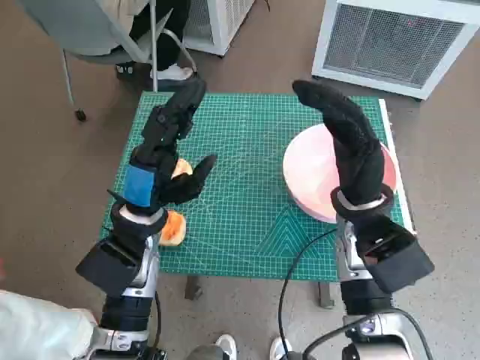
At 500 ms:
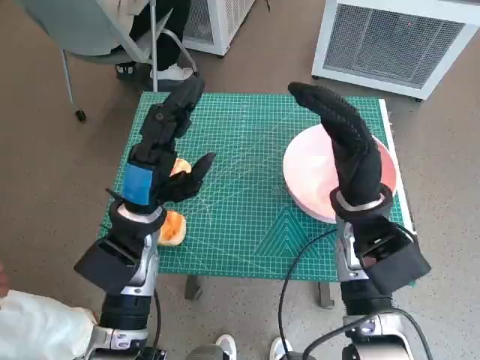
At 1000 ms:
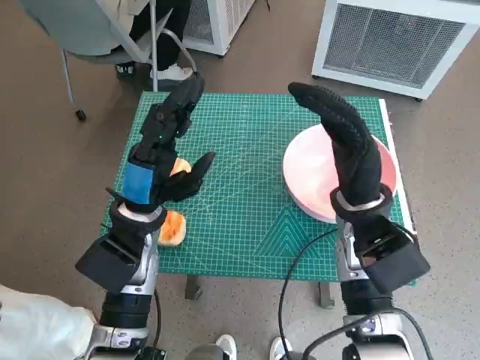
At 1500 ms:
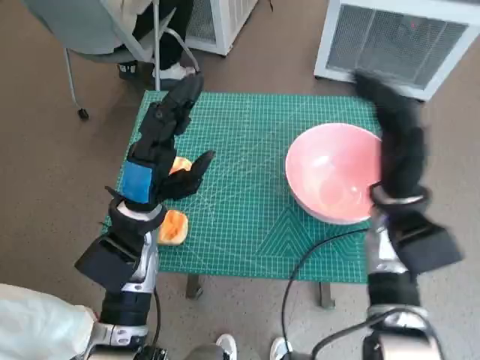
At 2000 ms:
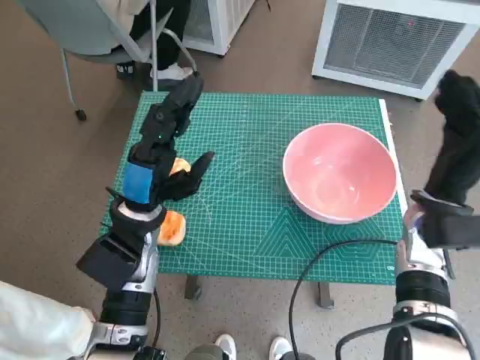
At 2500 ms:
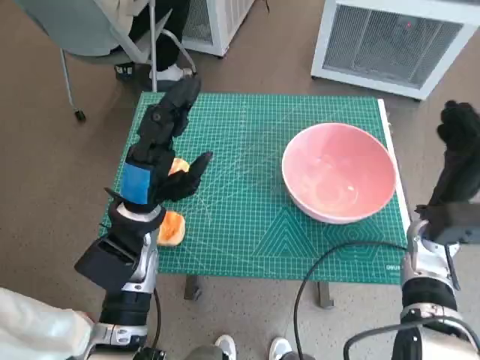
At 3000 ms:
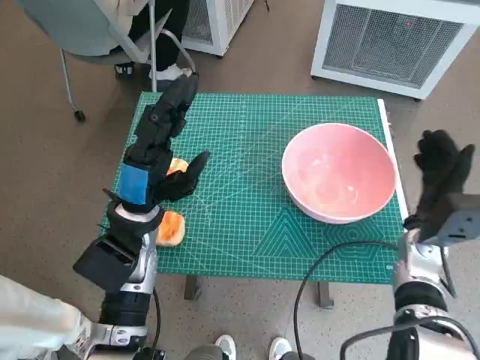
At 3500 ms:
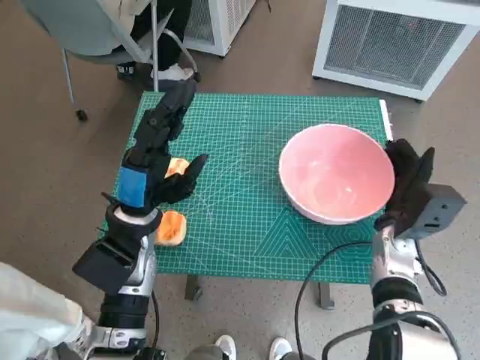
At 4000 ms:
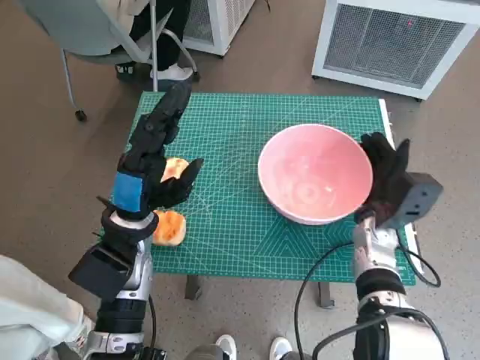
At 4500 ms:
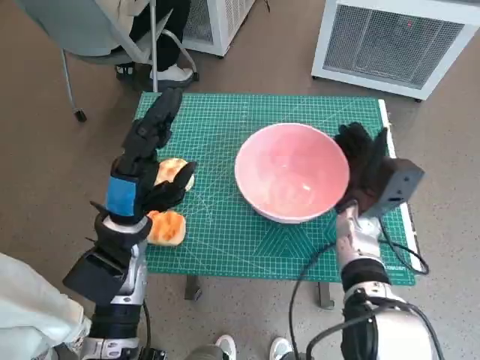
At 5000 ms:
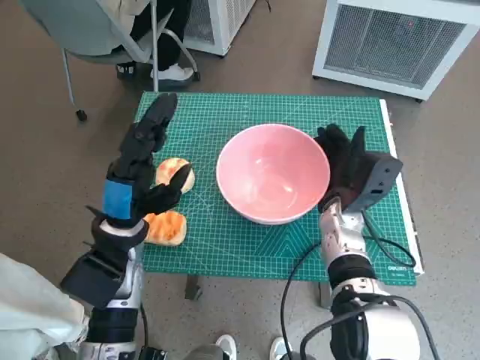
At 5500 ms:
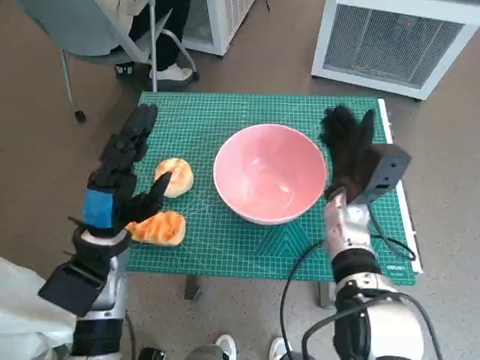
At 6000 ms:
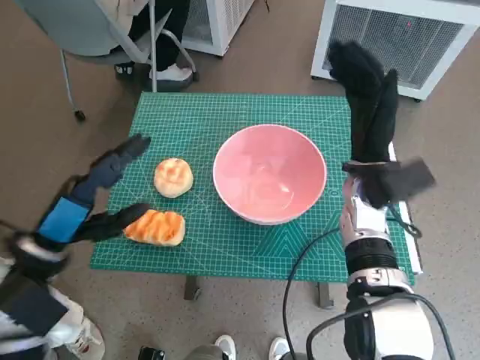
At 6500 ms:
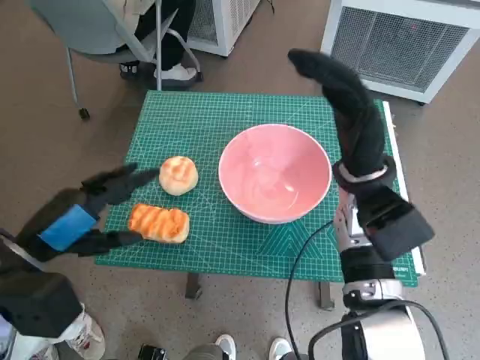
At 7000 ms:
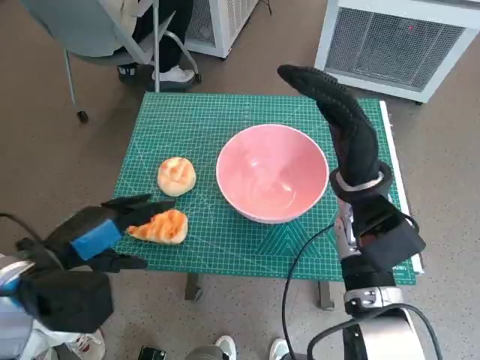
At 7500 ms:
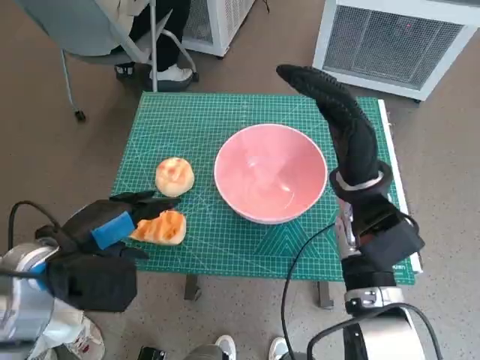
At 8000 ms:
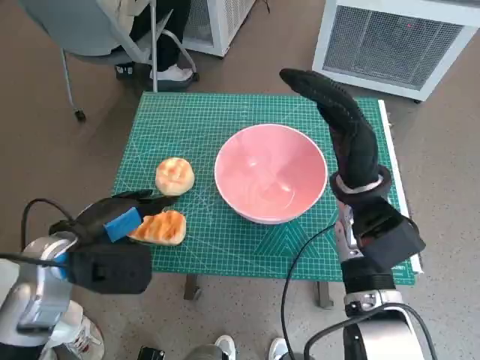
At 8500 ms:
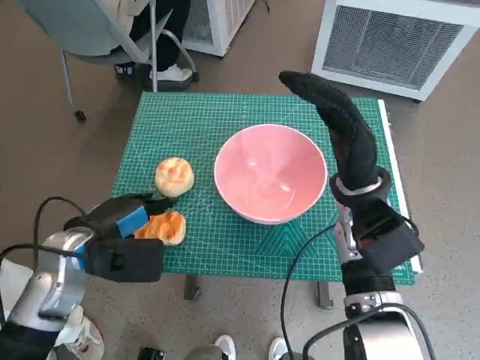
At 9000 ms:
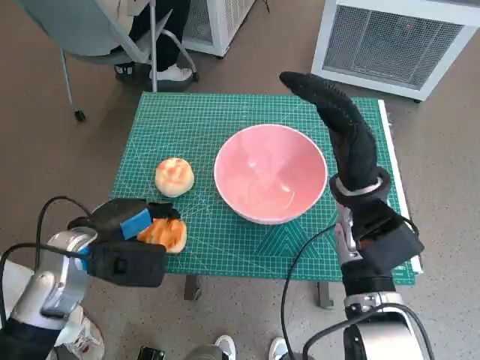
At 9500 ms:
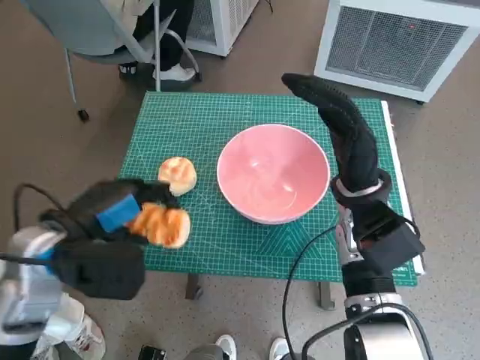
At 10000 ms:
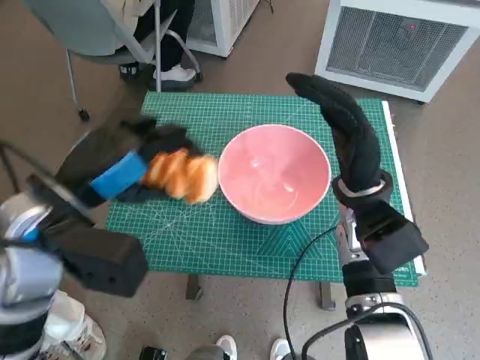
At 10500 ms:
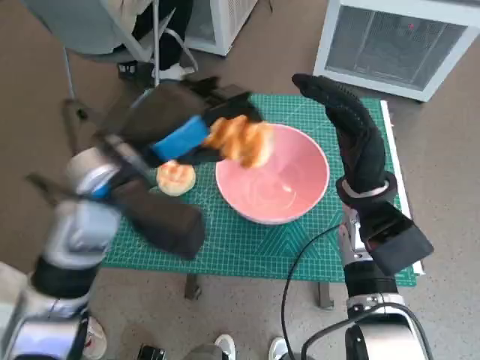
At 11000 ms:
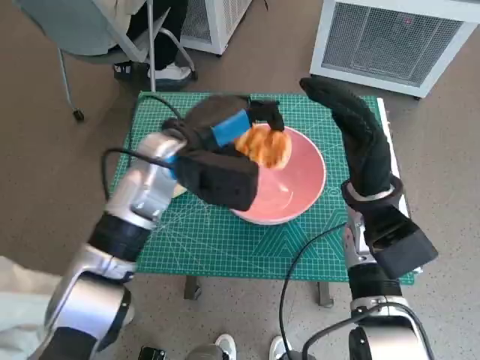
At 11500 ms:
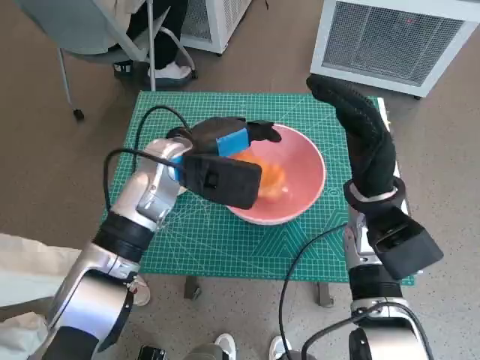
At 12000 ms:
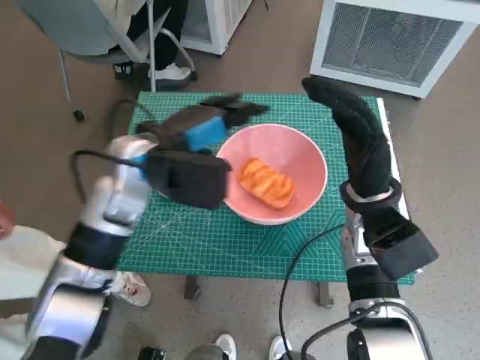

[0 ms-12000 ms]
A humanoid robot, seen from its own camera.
Task of the whole recording: Push the bowl to the center of the table and put the bread into the bowl.
Step, 0 ms to 5500 ms: Move the pink bowl to the center of table with right hand.
Step, 6000 ms to 9000 ms: Grasp the long bread with left hand.
Step, 9500 ms to 11500 ms: Place the long bread in pink bowl with left hand.
2000 ms to 4000 ms: The right hand travels downward by some 5 cm.
4000 ms to 6000 ms: The left hand travels to the left and backward by some 10 cm. The right hand is displaced upward by about 10 cm.
8000 ms to 10000 ms: The left hand heads upward, covering approximately 10 cm.
10000 ms to 12000 ms: The left hand goes approximately 10 cm forward and to the right.

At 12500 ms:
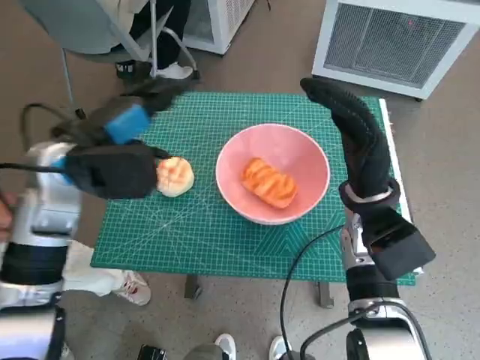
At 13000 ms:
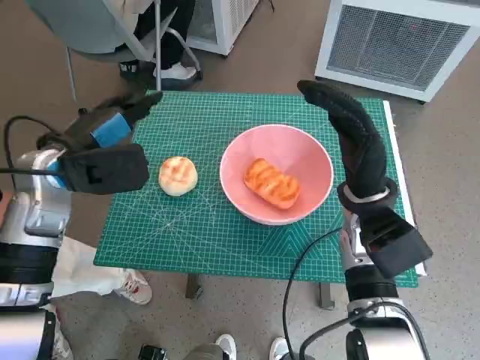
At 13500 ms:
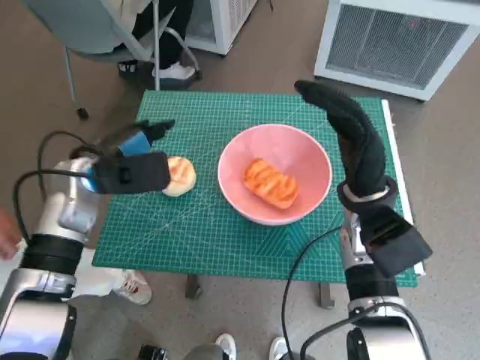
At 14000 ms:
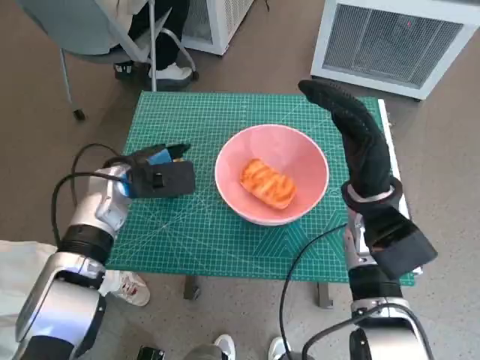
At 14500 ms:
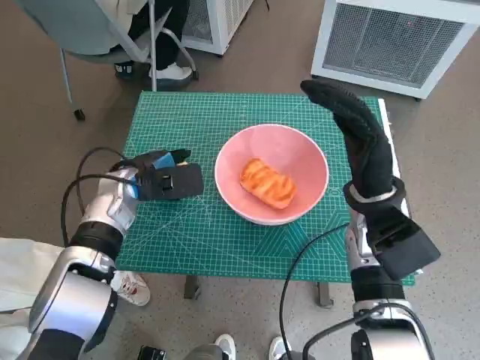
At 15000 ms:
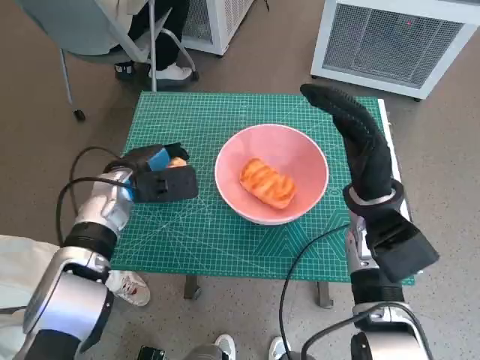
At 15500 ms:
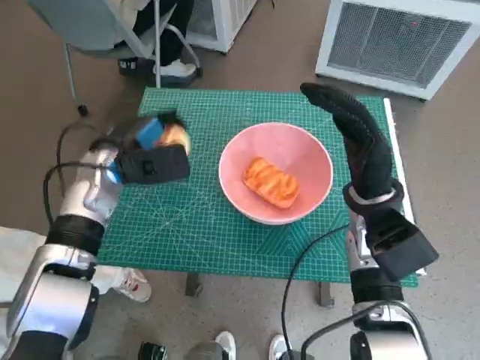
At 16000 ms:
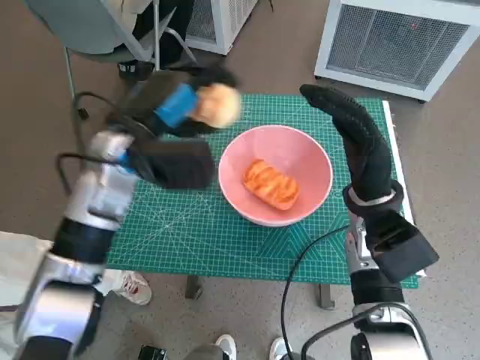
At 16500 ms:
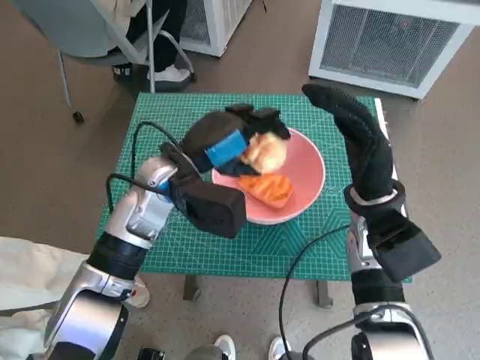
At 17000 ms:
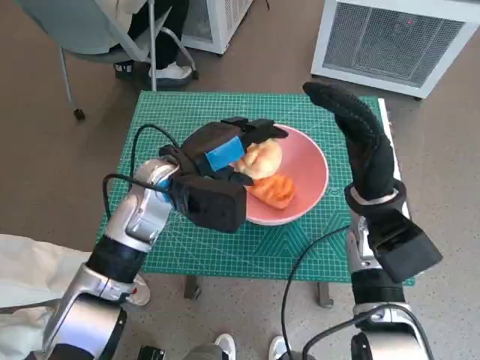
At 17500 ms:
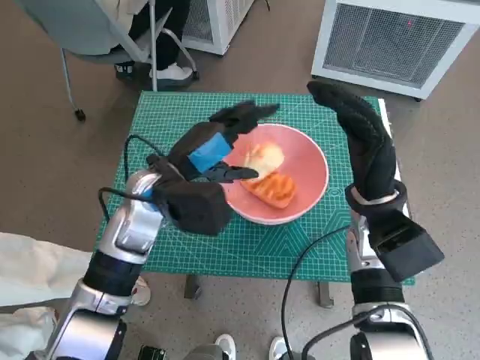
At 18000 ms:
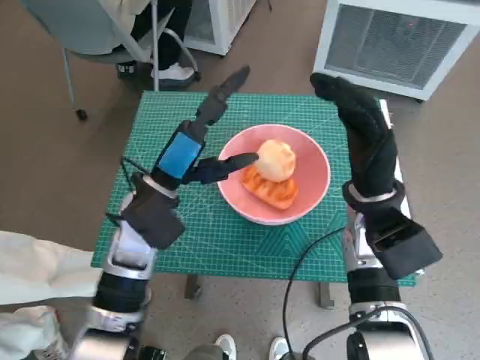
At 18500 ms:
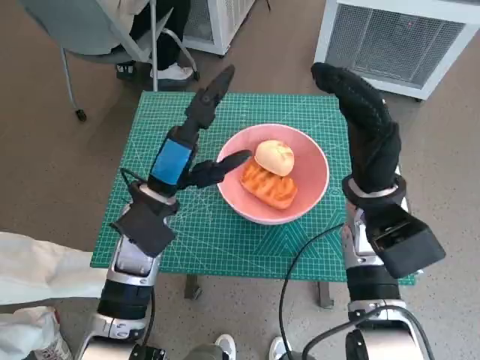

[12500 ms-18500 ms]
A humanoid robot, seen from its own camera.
Task of the whole recording: Push the bowl to the center of the table and put the bread into the bowl.
Step, 12500 ms to 14500 ms: Grasp the round bread with left hand.
Step, 15000 ms to 17500 ms: Place the round bread in pink bowl with left hand.
12500 ms to 14500 ms: The left hand goes roughly 10 cm downward.
14500 ms to 16500 ms: The left hand travels to the right and upward by about 10 cm.
16500 ms to 18500 ms: The left hand ends up roughly 5 cm from where it was.

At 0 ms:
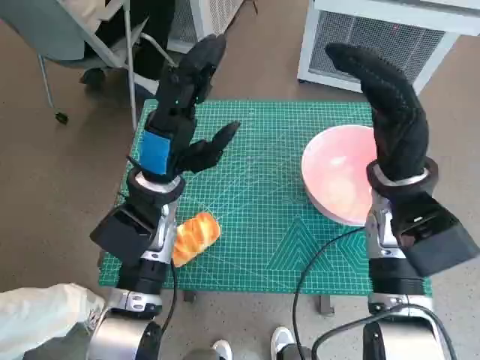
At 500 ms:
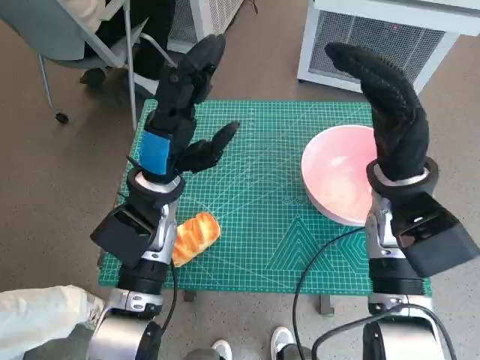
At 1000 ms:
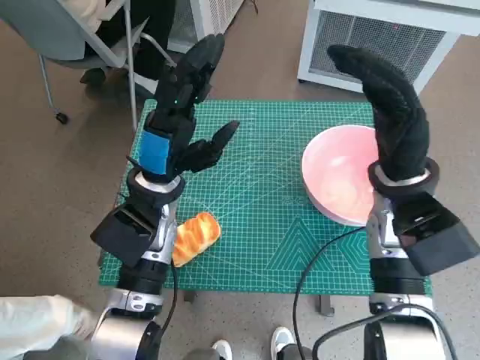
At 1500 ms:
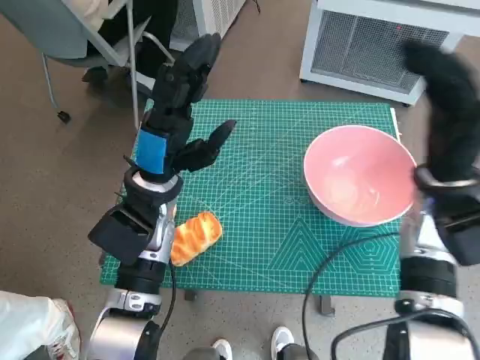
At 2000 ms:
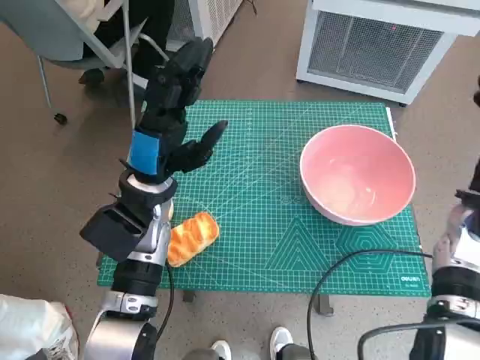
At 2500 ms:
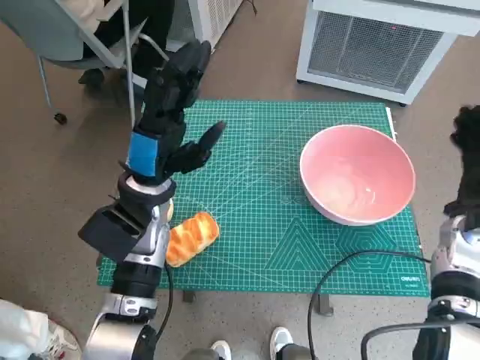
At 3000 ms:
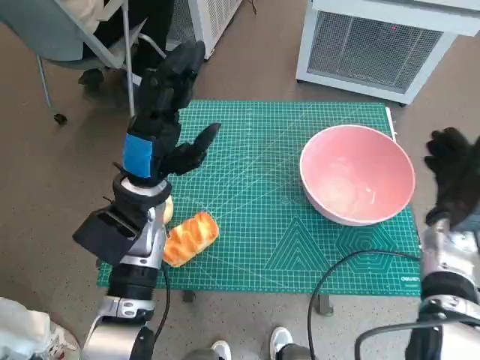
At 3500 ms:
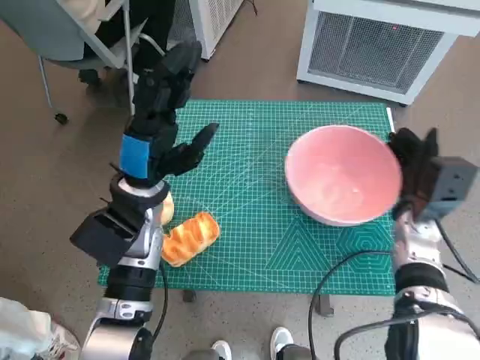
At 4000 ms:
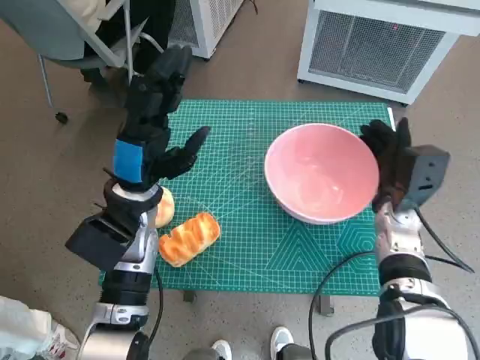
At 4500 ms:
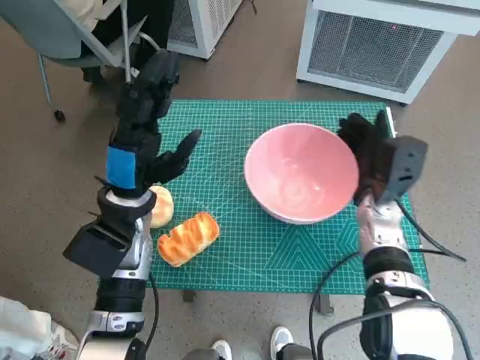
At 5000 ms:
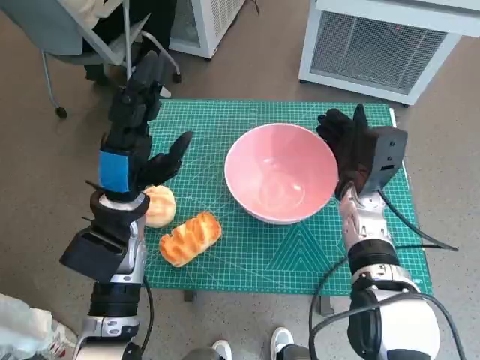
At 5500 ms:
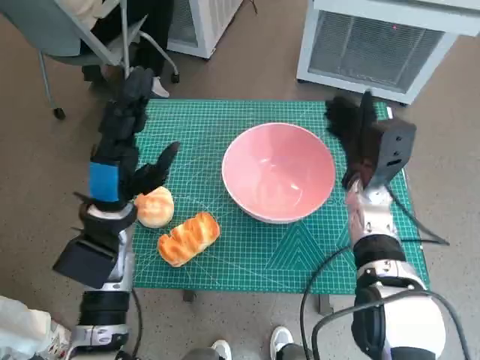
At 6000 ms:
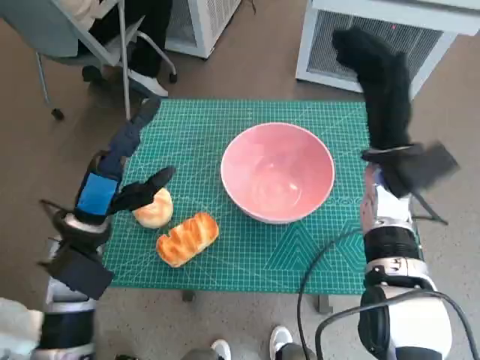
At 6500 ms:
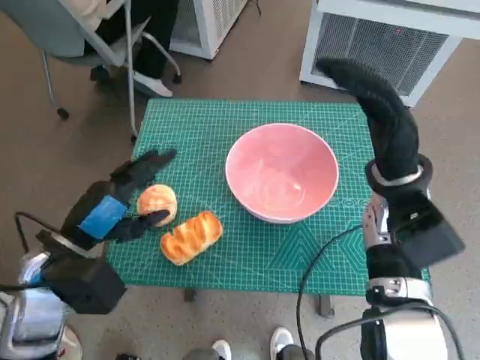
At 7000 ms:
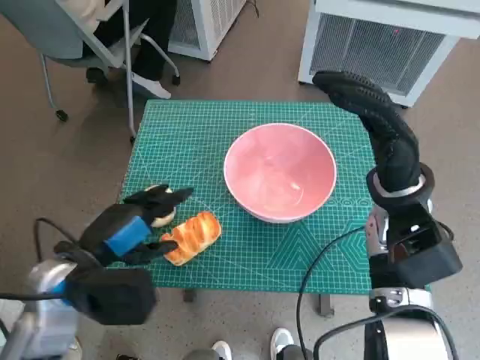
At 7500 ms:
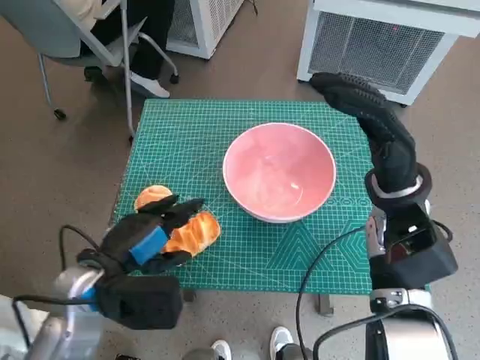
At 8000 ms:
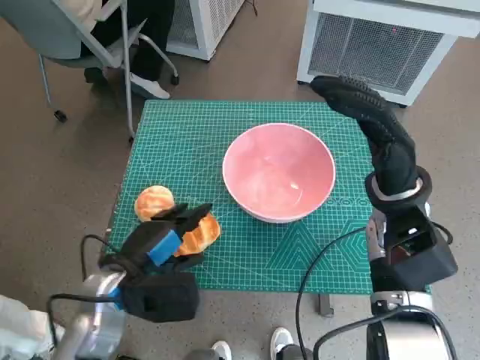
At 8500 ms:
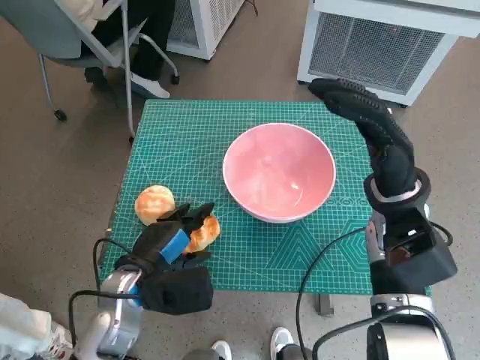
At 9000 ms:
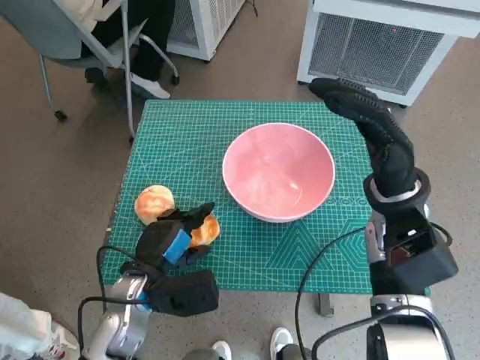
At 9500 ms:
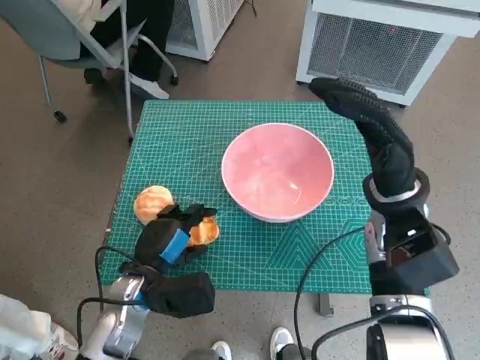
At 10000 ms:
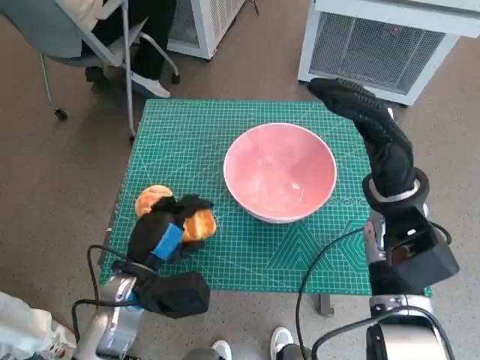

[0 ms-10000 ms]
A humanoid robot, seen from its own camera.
Task of the whole recording: Push the bowl to the center of the table and put the bread into the bowl.
Step, 0 ms to 5500 ms: Move the pink bowl to the center of table with right hand.
Step, 6000 ms to 9500 ms: Grasp the long bread with left hand.
2000 ms to 4000 ms: The right hand heads to the left and downward, covering some 10 cm.
4000 ms to 6000 ms: The left hand travels to the left by roughly 5 cm. Meanwhile the right hand shifts some 10 cm upward.
6000 ms to 8000 ms: The left hand changes place by about 5 cm.
8000 ms to 10000 ms: The hands stay close to where they were, moving slightly.
